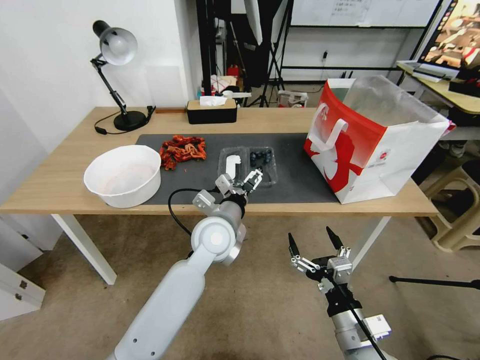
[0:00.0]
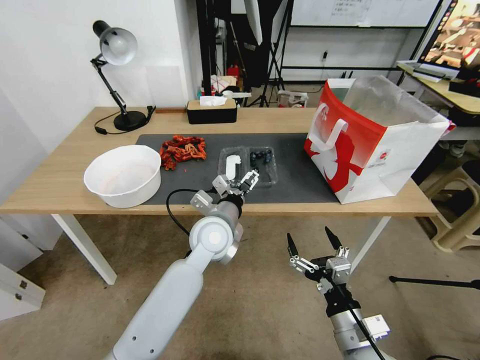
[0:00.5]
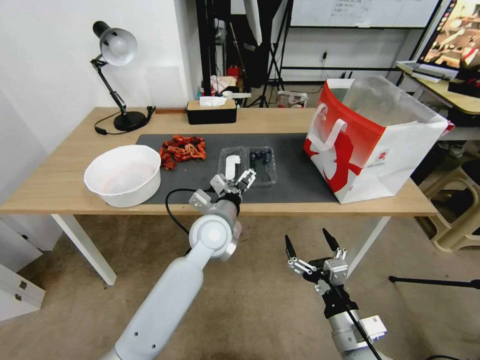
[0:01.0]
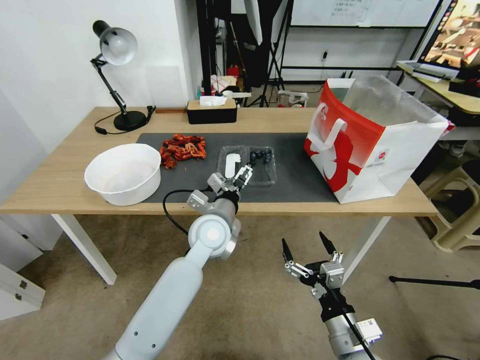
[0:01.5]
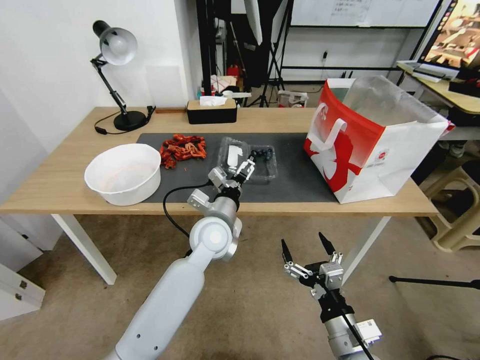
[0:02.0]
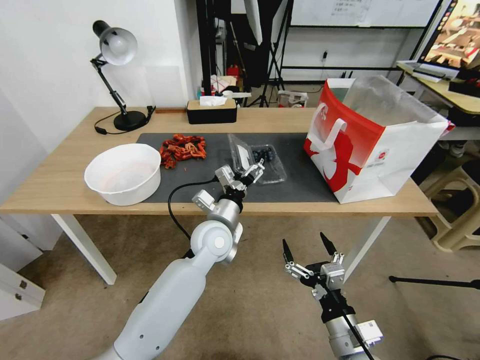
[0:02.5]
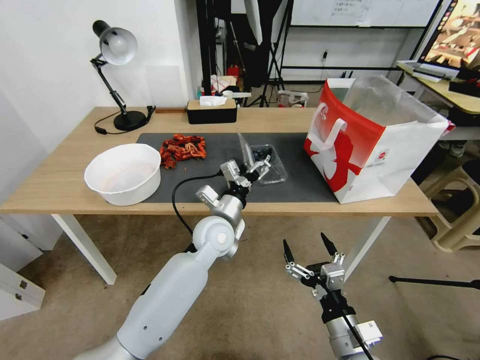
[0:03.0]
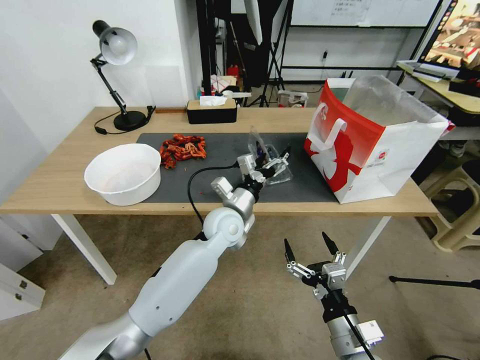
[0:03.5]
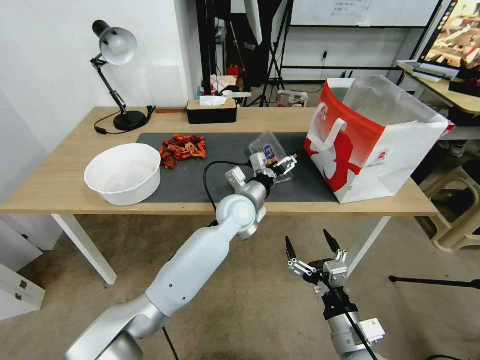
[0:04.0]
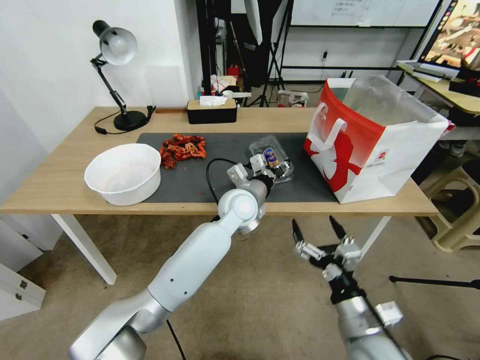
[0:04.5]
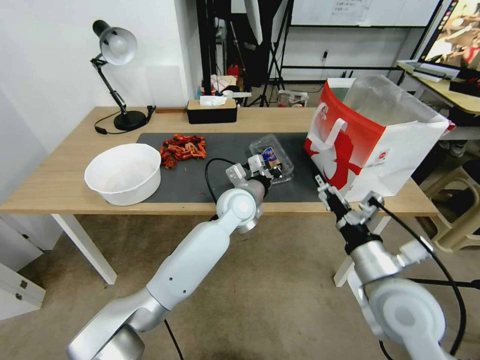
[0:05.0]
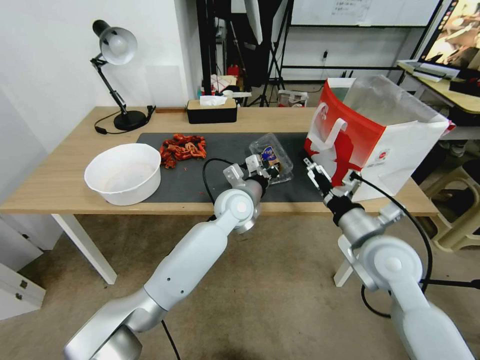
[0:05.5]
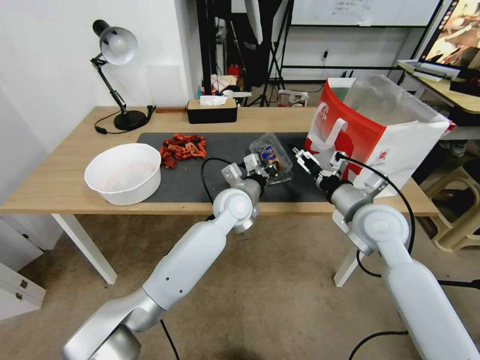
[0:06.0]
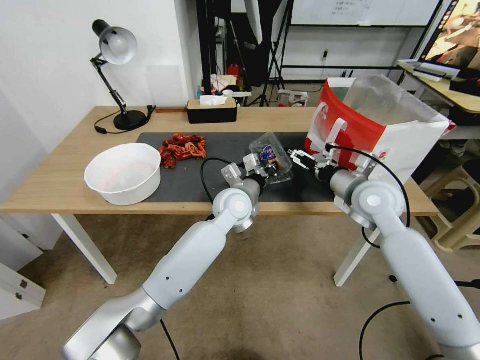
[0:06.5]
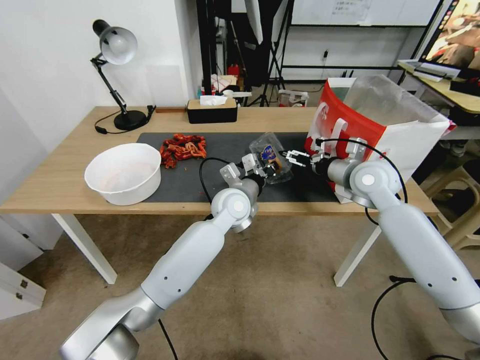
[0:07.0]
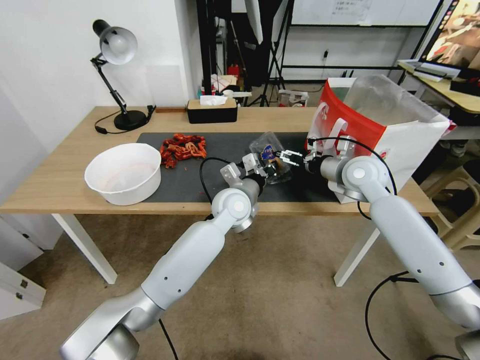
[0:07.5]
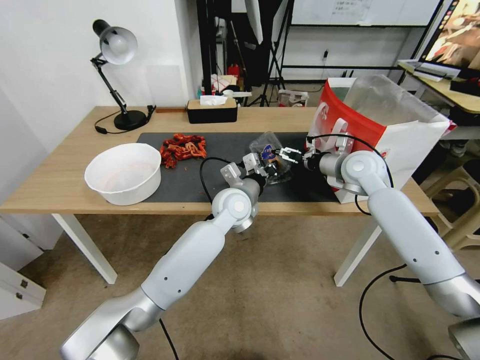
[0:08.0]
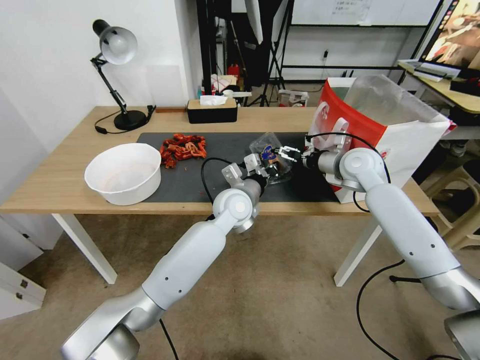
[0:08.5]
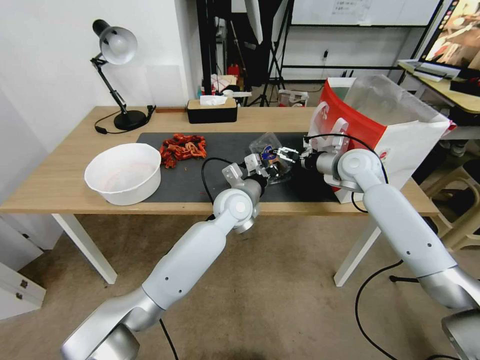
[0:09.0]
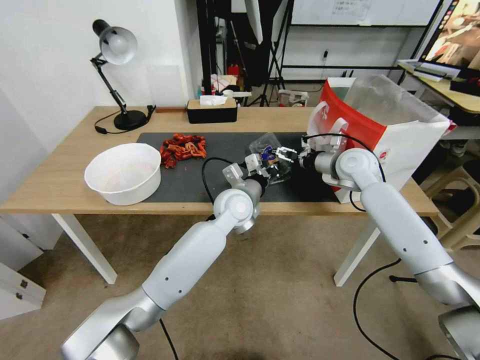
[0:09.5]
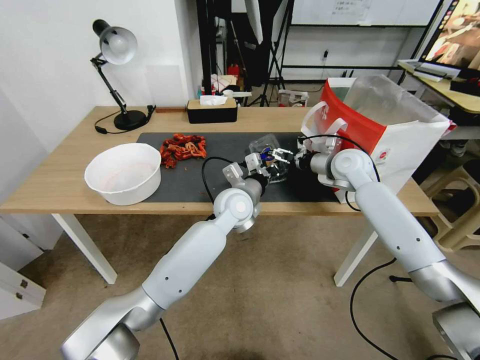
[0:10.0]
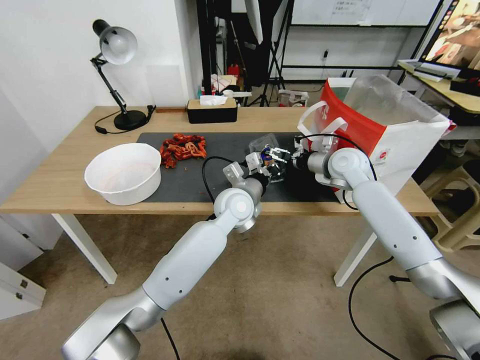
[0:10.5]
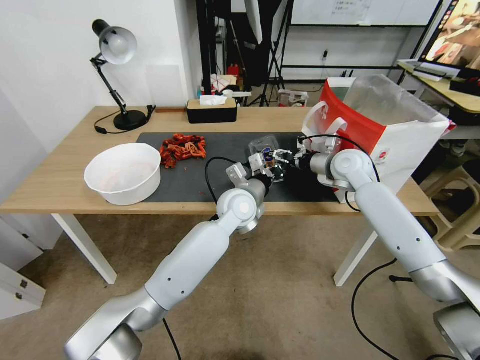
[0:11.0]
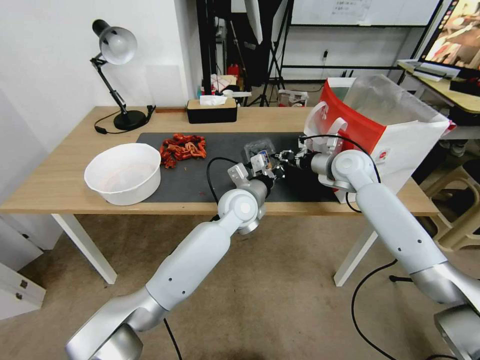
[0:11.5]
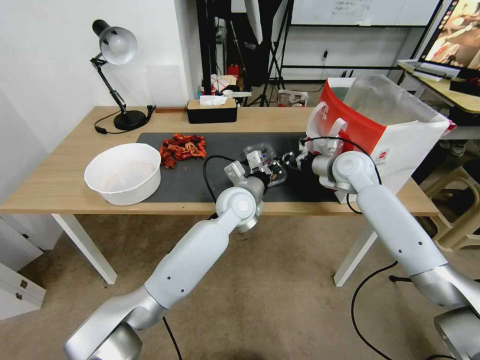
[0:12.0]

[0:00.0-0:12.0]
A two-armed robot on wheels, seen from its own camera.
Task of the whole recording: Close the takeout container lid, then place the container into the takeout bag.
0:00.0 to 0:02.0: There are only small adjustments of the grippers.
0:02.0 to 0:04.0: The left gripper goes about 10 cm forward and to the right.
0:04.0 to 0:06.0: The left gripper closes; the right gripper moves forward and upward, roughly 25 cm.
0:06.0 to 0:08.0: The right gripper is displaced forward by roughly 15 cm.
0:08.0 to 0:10.0: The grippers move only a little.
0:10.0 to 0:12.0: The right gripper closes up.

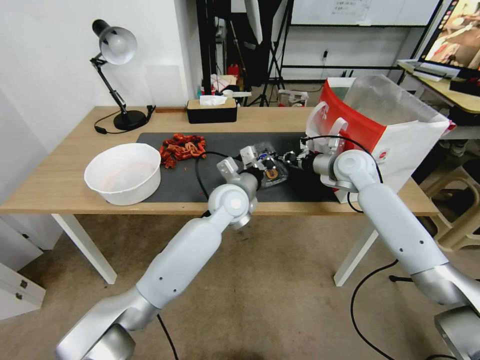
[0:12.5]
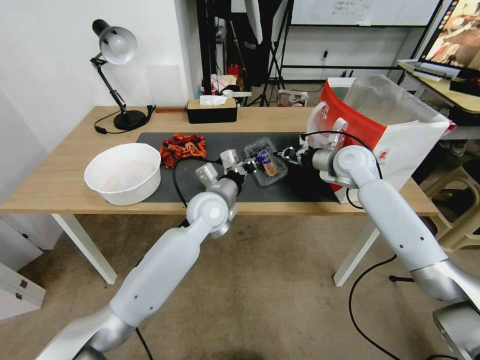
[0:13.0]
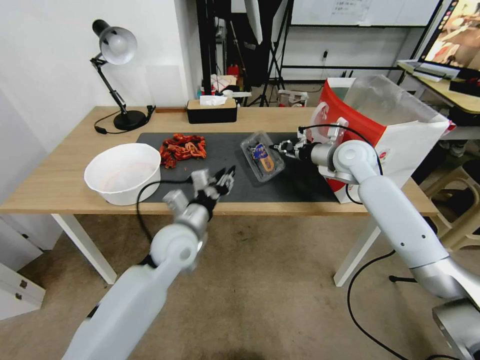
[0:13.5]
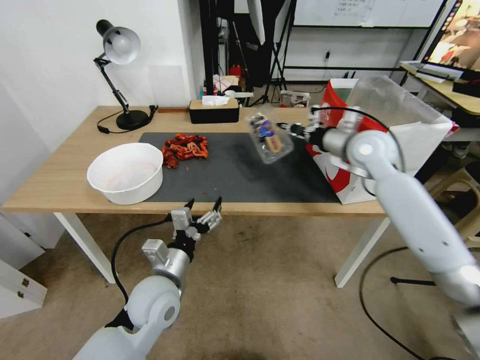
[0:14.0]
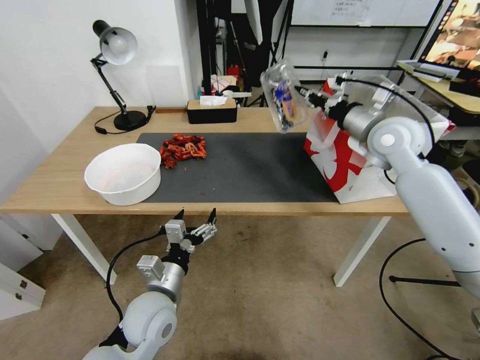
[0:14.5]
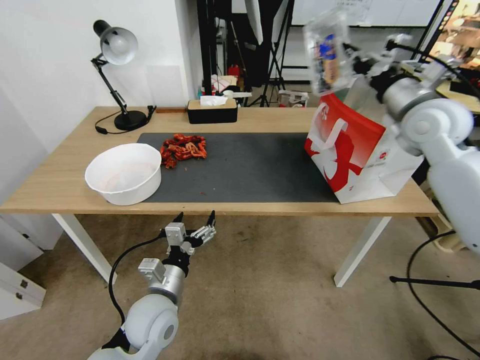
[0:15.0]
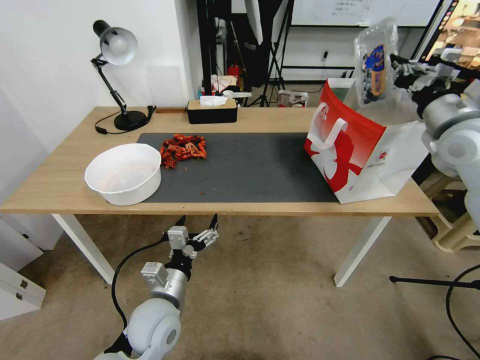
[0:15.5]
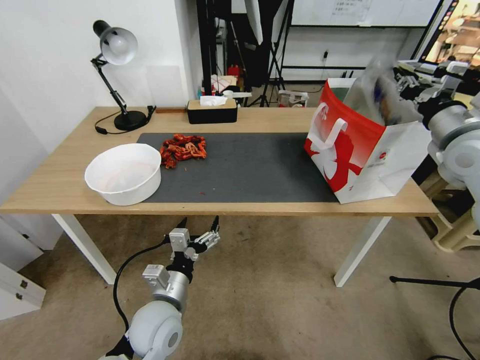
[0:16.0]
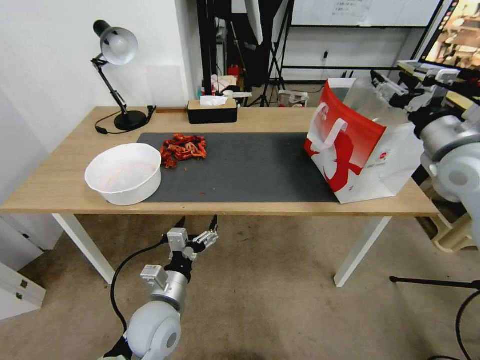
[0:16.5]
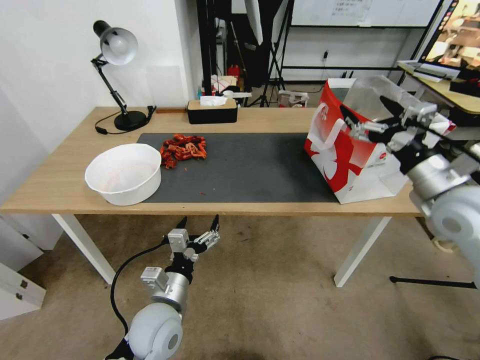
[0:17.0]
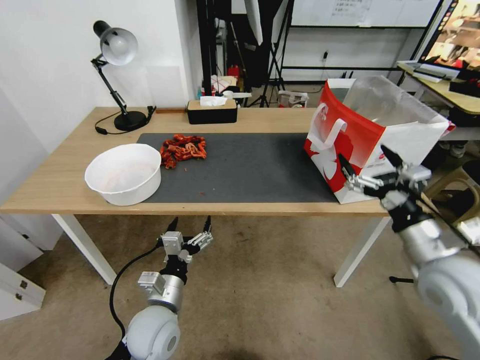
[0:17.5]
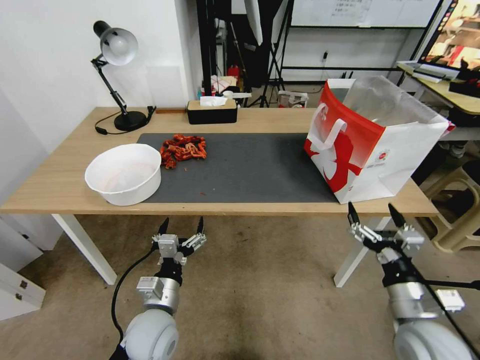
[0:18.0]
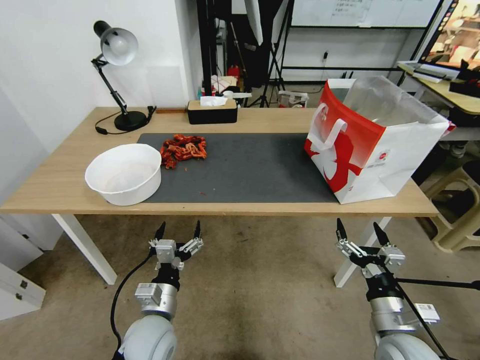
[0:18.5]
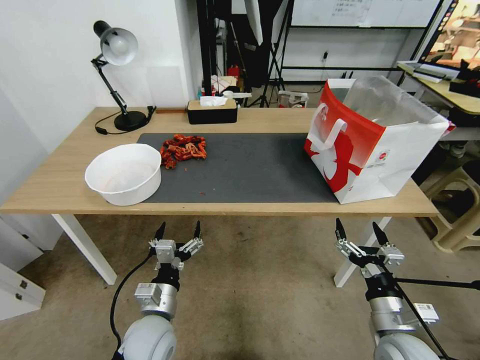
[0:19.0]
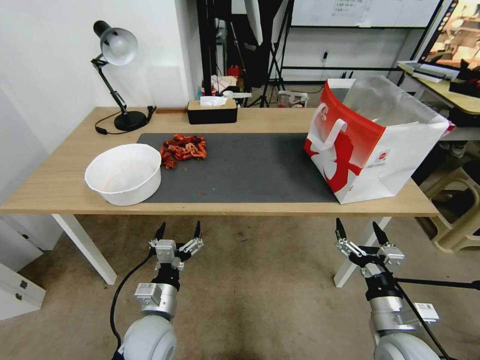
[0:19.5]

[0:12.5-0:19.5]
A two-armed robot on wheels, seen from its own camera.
Task of the whole recording: Close the takeout container lid, then place the container into the takeout bag.
0:12.5 to 0:14.5: The right gripper heads upward, covering some 15 cm. The left gripper heads backward and to the left, covering roughly 25 cm, and opens.
0:14.5 to 0:16.0: The right gripper shifts approximately 10 cm to the right and backward.
0:16.0 to 0:17.5: The right gripper is displaced backward and downward by about 20 cm, and opens.
0:17.5 to 0:19.5: The right gripper moves downward and backward, approximately 15 cm.

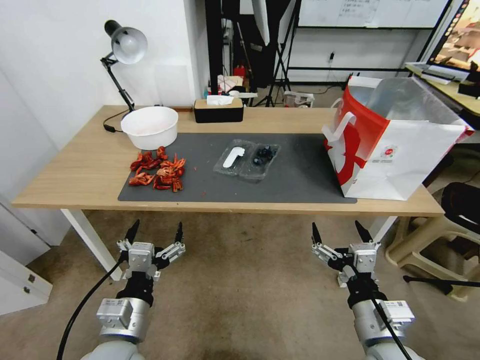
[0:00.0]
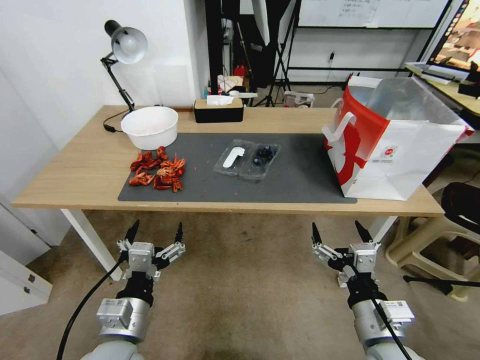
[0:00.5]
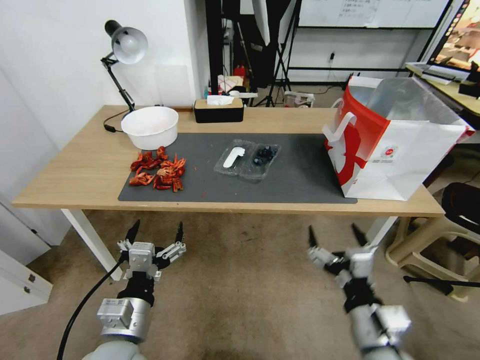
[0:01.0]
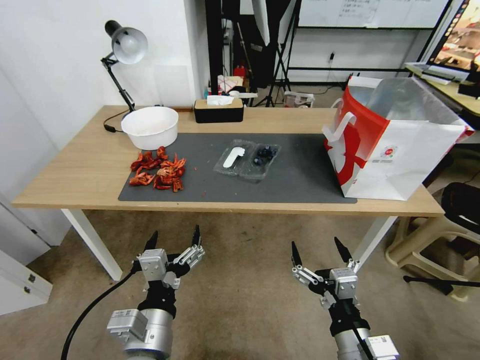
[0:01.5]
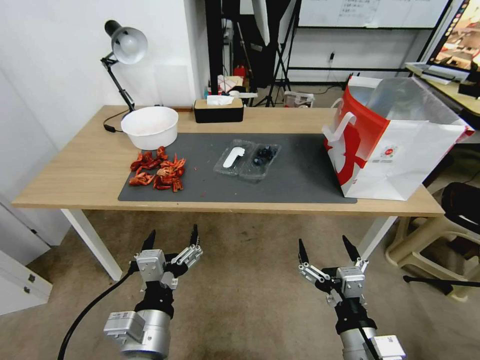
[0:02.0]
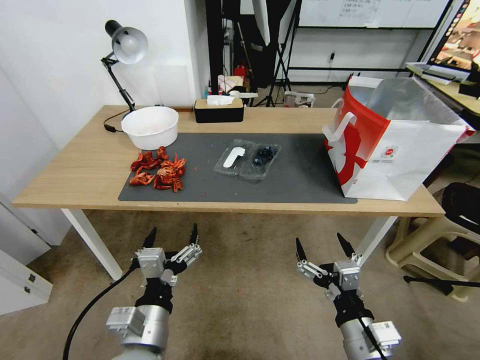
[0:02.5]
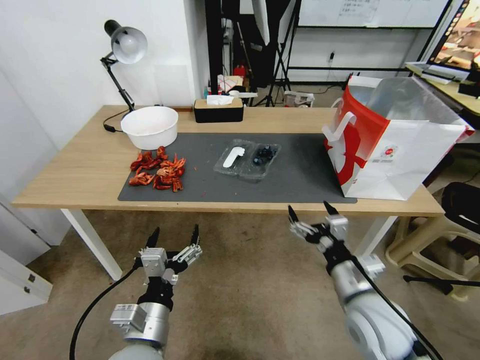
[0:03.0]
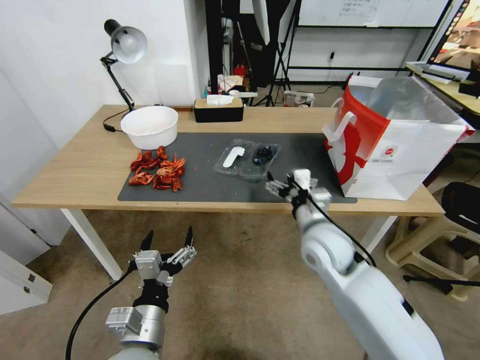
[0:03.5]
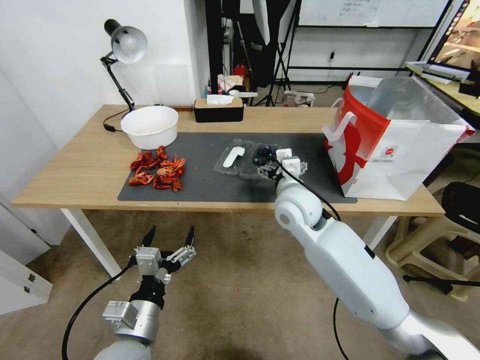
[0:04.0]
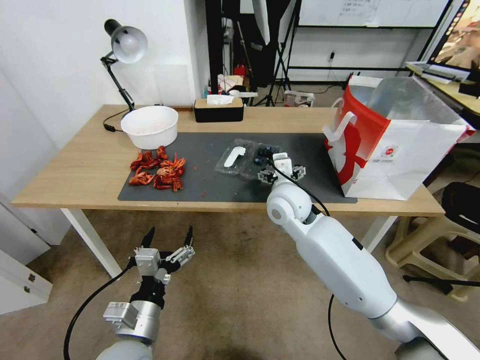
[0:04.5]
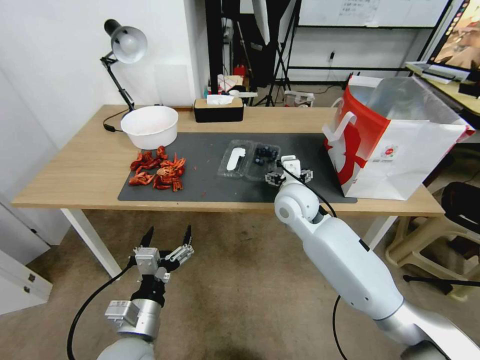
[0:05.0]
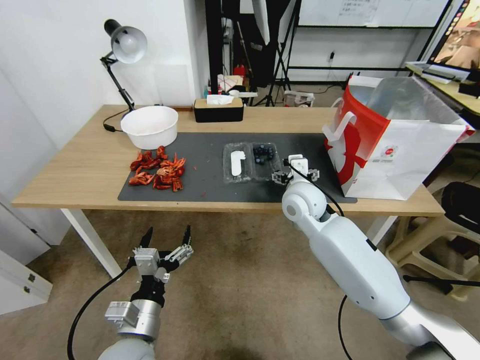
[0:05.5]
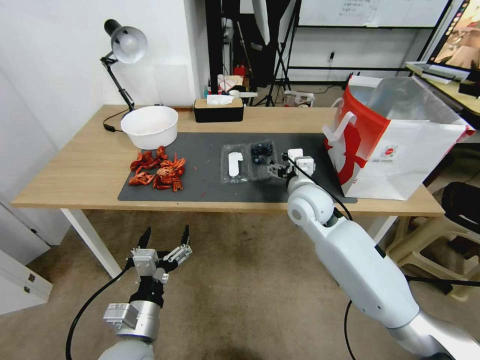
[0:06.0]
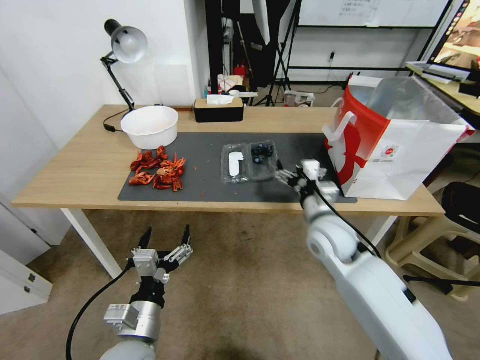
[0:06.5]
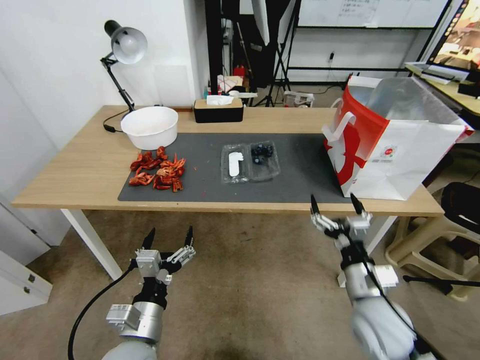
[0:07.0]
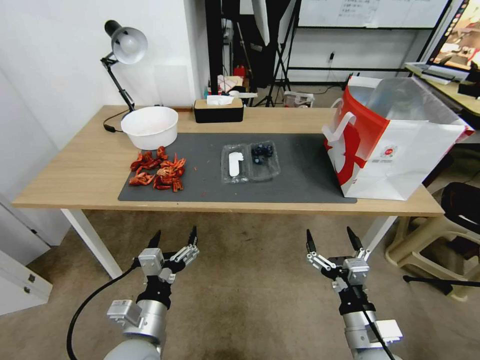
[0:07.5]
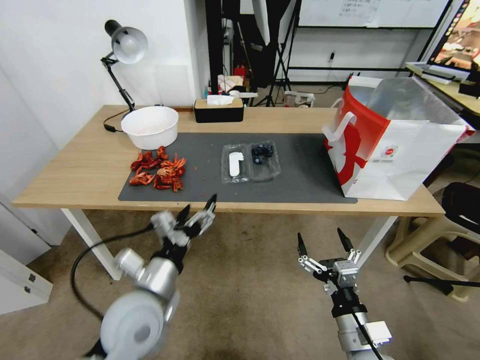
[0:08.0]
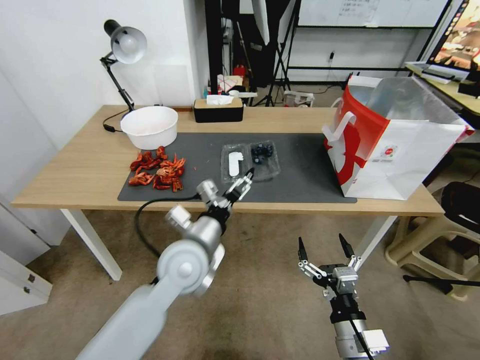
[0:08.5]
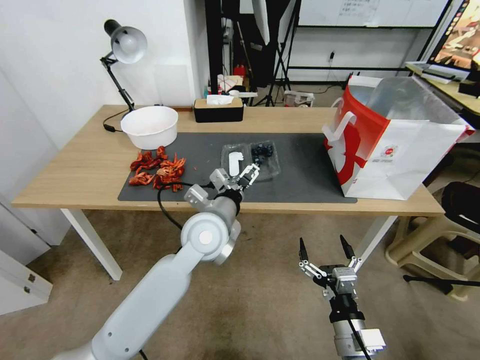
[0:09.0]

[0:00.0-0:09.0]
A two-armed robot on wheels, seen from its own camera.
Task of the whole recording: Close the takeout container lid, then place the container into the takeout bag.
0:02.0 to 0:04.5: The left gripper moves downward, approximately 5 cm. Meanwhile the right gripper shifts about 30 cm forward.
0:04.5 to 0:07.0: The right gripper goes approximately 30 cm backward, to the right and downward.
0:07.0 to 0:09.0: The left gripper goes about 25 cm forward, to the right and upward, while the right gripper moves backward and downward, some 10 cm.
